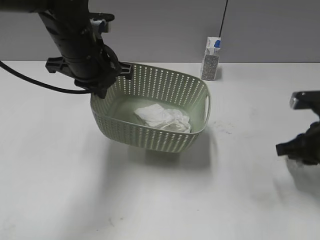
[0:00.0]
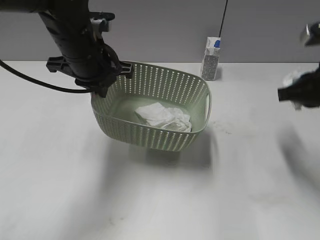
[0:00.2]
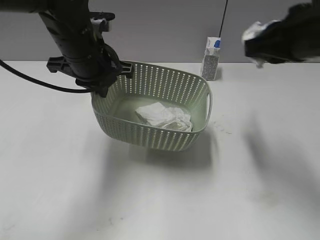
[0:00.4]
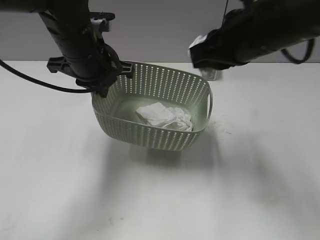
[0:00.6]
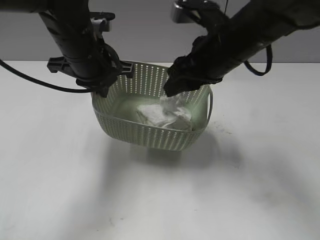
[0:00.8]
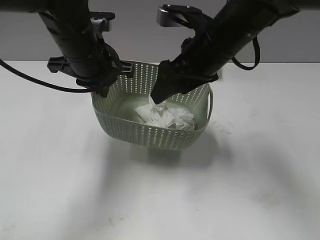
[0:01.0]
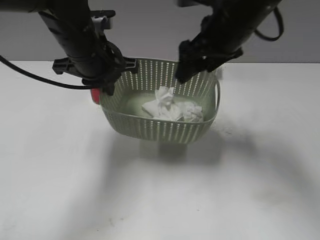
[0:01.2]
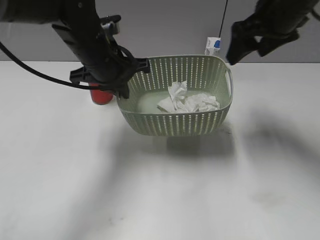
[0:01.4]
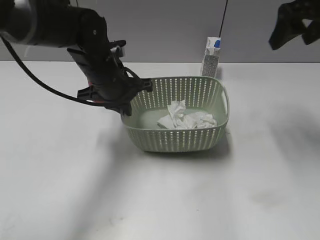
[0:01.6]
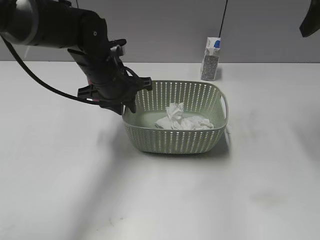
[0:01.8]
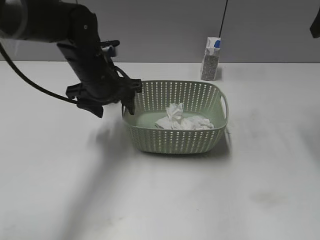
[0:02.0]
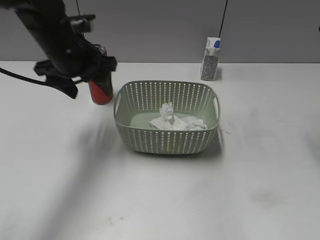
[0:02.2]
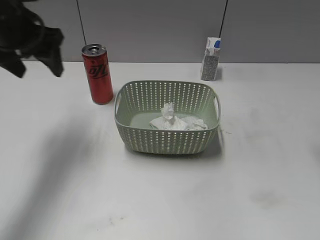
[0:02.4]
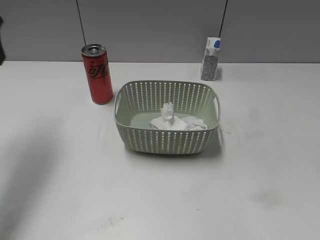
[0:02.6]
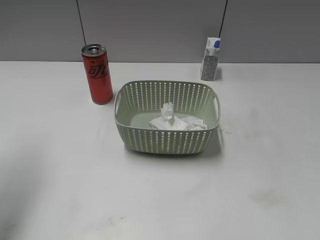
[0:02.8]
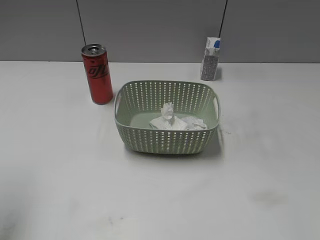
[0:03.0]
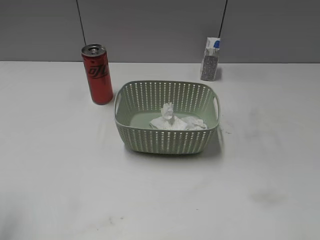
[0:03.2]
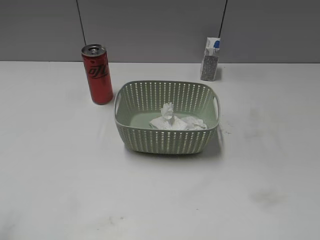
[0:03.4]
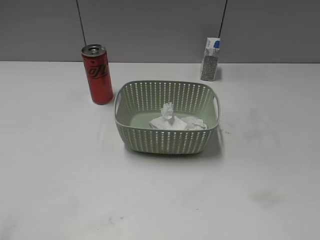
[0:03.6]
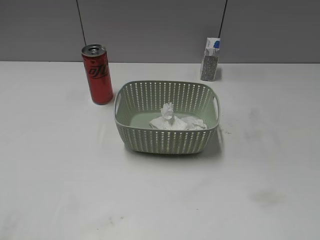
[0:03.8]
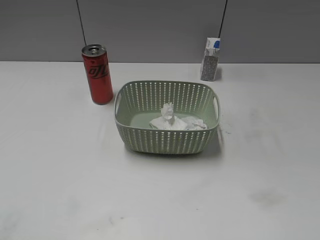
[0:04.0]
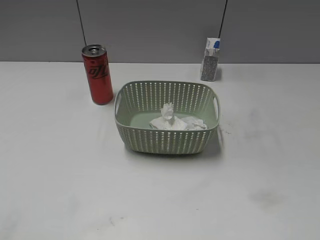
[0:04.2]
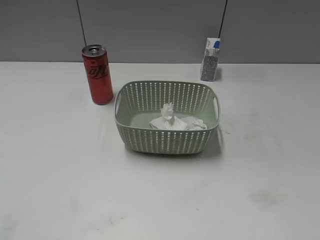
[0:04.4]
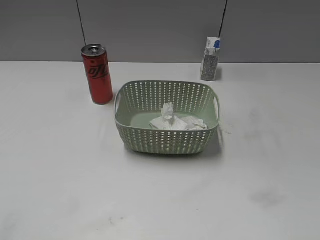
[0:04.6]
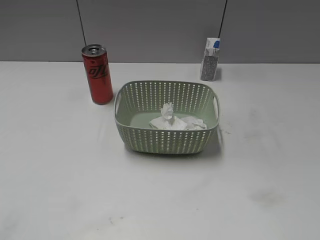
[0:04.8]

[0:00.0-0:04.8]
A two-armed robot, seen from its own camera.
Step, 0:00.0 to 0:01.2: Place the waste paper in the basket with right gripper.
Step, 0:01.4 to 0:02.2: Place the basket on the table with left gripper.
0:00.0 to 0:01.6: The left gripper heads downward, covering about 5 cm. Meanwhile the right gripper shifts approximately 20 cm upward and forward, moves approximately 20 cm to the left and comes back, and opens its fingers.
0:01.6 to 0:03.2: The left gripper shifts approximately 35 cm to the left, backward and upward, and opens its fingers. The right gripper is displaced backward by about 25 cm.

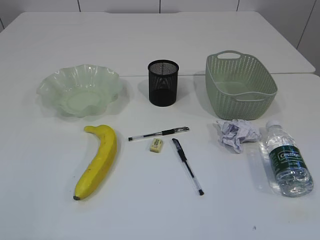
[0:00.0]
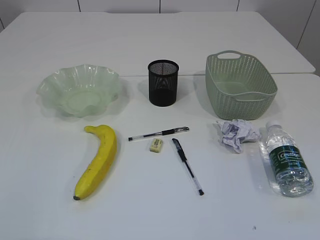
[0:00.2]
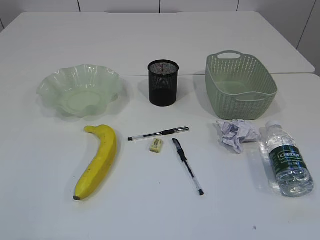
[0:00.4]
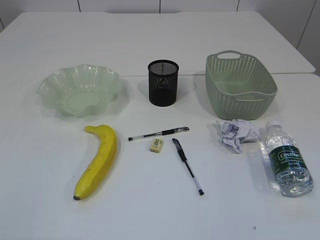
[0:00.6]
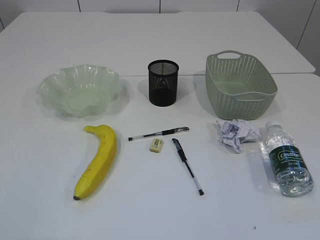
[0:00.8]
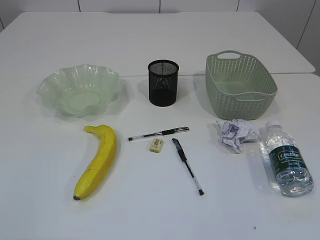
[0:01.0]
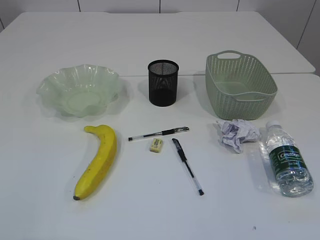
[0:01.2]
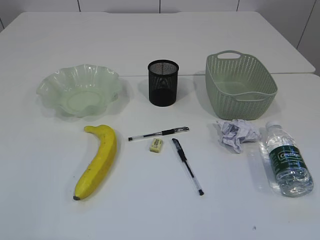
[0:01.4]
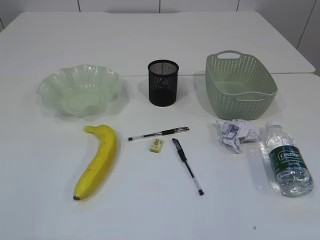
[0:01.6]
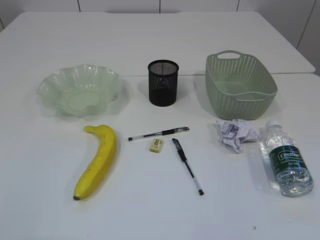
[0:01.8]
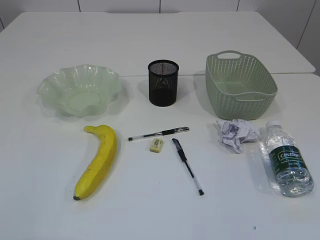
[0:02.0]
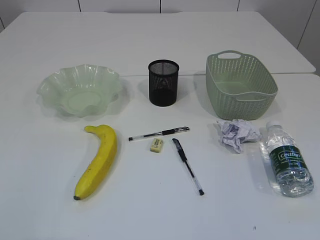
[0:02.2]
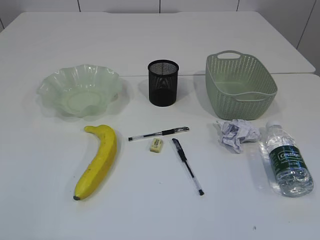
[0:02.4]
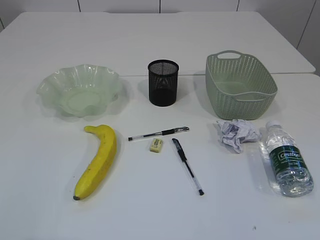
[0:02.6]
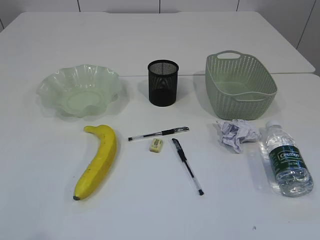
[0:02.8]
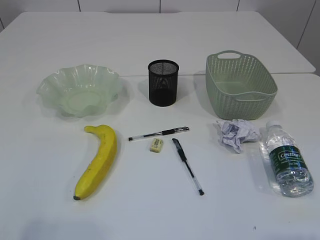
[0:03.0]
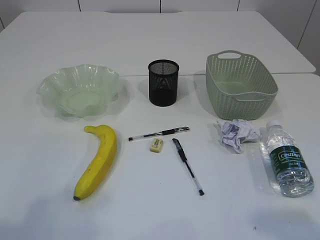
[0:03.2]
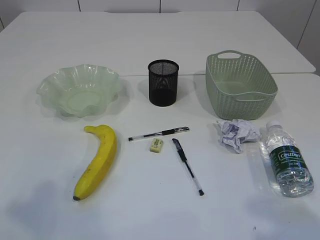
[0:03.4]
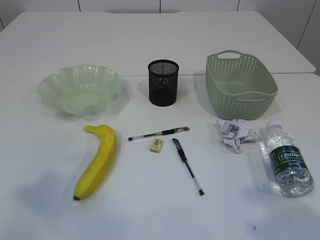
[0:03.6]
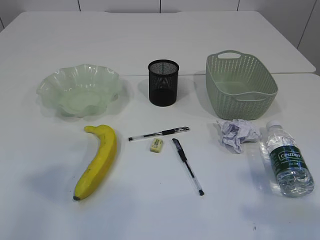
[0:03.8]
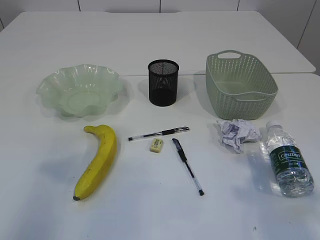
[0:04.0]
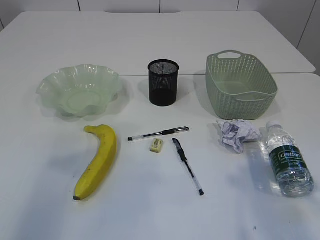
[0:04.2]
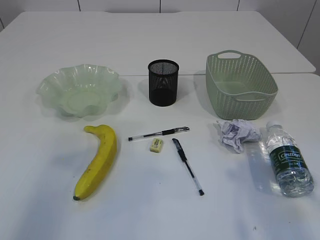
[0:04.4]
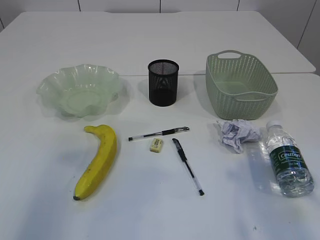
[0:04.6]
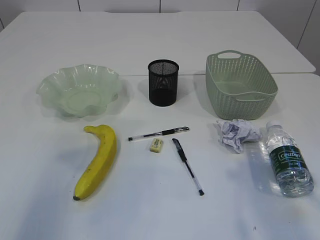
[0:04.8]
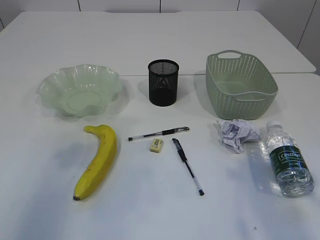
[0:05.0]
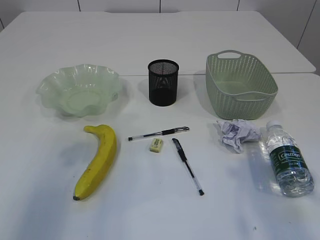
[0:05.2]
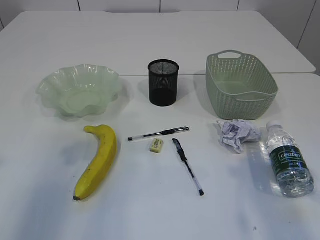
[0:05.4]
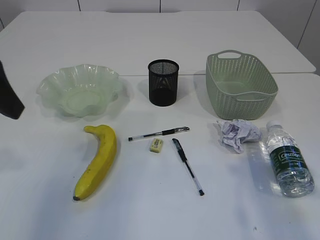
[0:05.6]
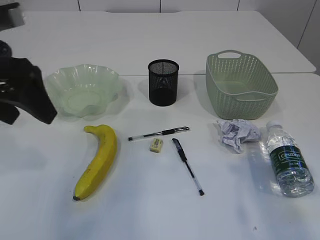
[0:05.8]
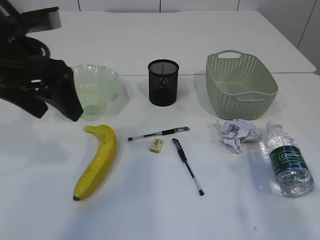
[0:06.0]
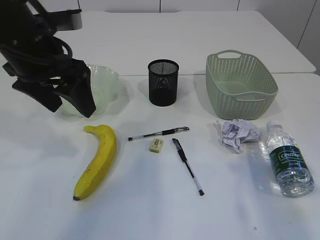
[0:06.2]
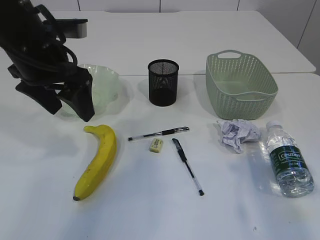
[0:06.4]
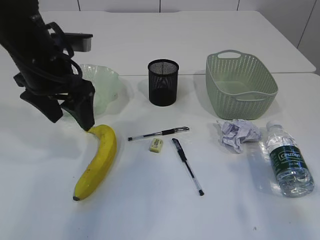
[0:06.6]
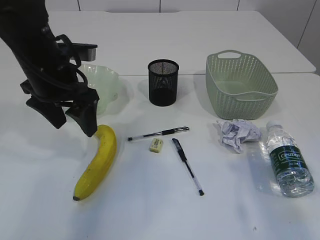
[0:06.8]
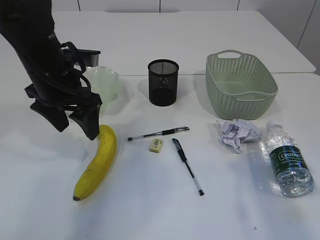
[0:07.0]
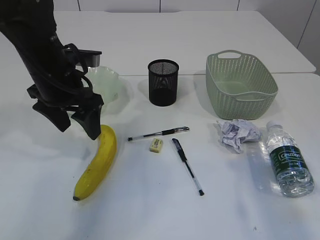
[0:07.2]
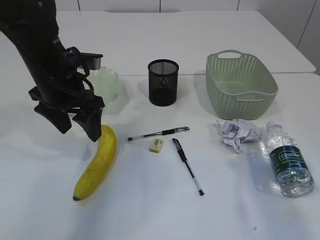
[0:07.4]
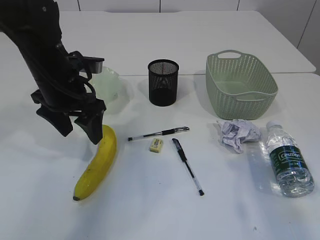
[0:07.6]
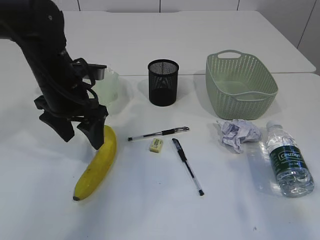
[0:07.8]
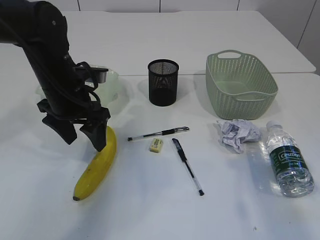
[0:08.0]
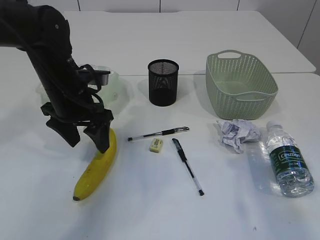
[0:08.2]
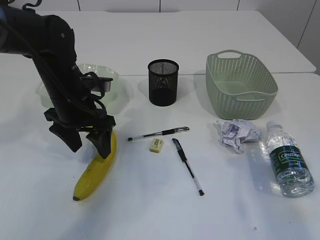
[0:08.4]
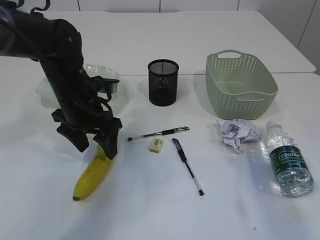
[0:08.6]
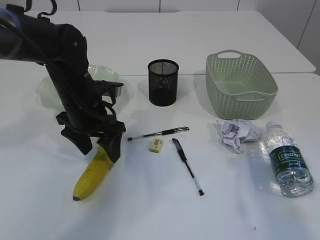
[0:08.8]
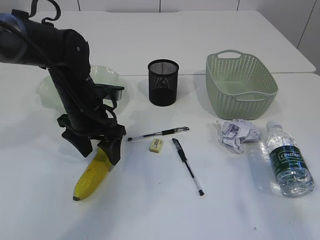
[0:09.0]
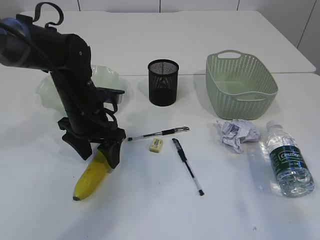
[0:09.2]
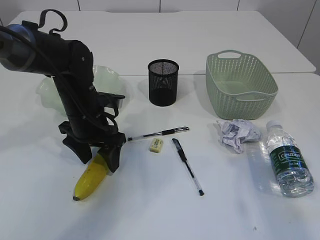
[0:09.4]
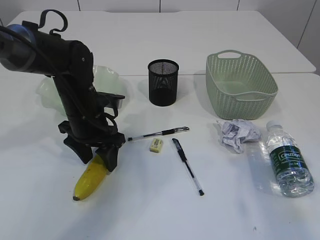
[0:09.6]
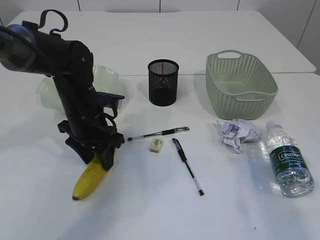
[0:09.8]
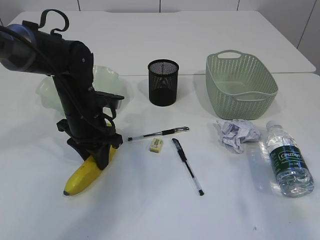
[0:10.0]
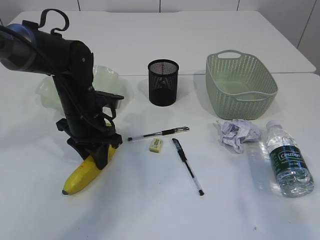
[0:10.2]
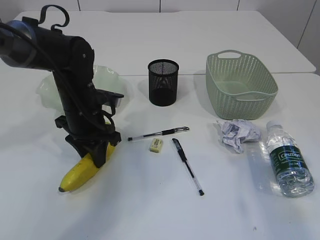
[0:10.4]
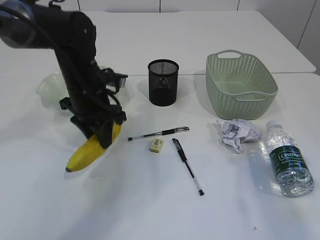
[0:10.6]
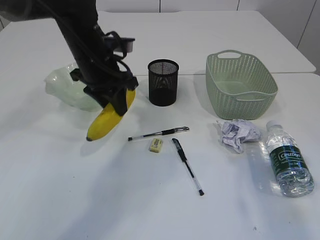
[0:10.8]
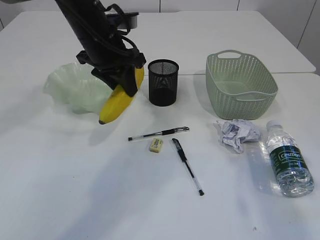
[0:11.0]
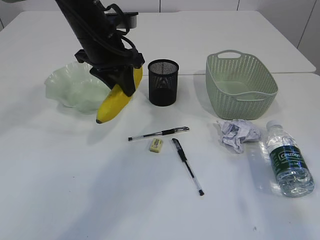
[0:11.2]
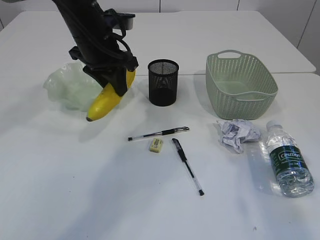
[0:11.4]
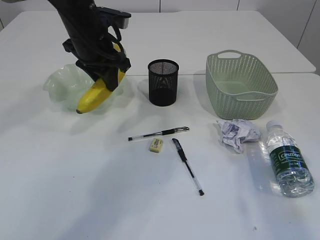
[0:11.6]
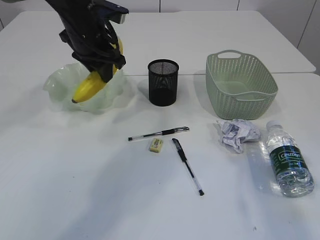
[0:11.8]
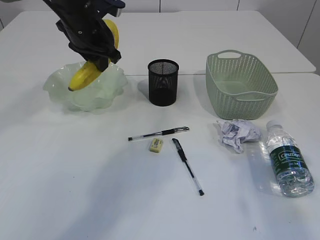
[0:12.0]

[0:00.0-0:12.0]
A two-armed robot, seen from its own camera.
0:03.0 to 0:04.4: The left gripper travels forward and upward by approximately 20 cm, while the right gripper travels forward by about 15 cm, and opens its fingers.
0:04.4 to 0:06.0: The left gripper goes some 20 cm forward, to the right and downward, and opens its fingers.
0:06.0 to 0:07.6: The left gripper shifts roughly 10 cm downward and forward.
0:07.6 to 0:09.0: The left gripper travels downward by about 5 cm.
0:09.0 to 0:10.4: The left gripper closes.
0:10.4 to 0:12.0: The left gripper shifts approximately 15 cm upward and forward.

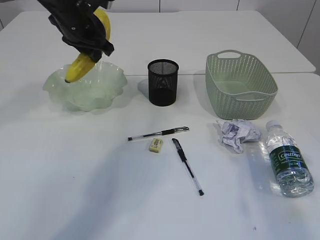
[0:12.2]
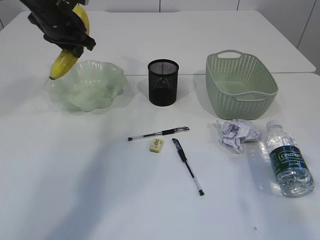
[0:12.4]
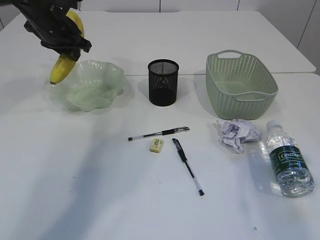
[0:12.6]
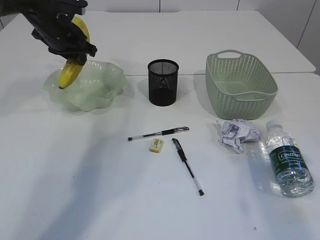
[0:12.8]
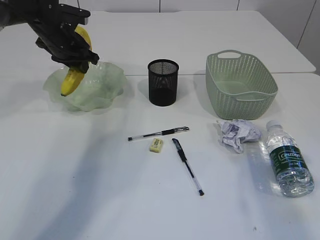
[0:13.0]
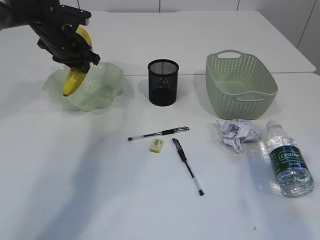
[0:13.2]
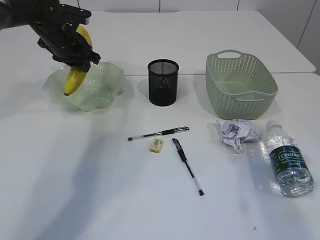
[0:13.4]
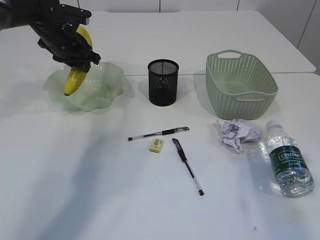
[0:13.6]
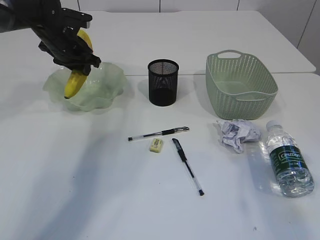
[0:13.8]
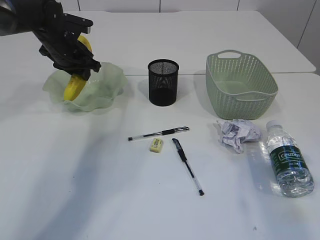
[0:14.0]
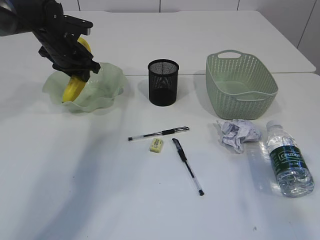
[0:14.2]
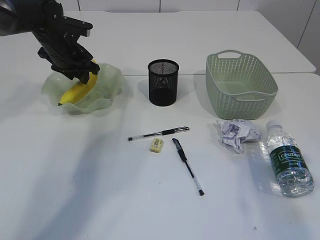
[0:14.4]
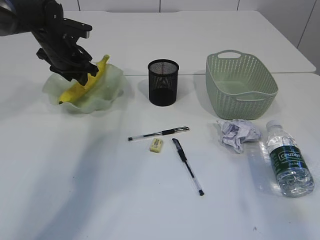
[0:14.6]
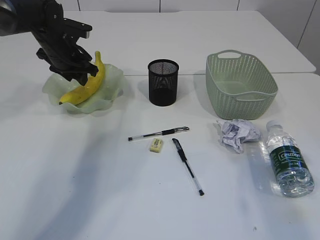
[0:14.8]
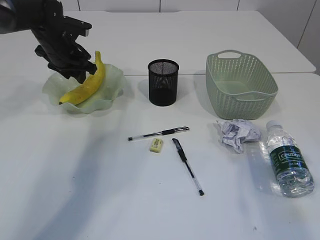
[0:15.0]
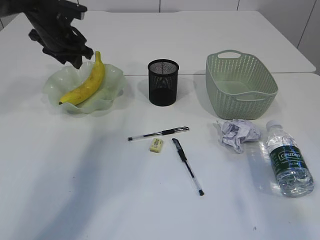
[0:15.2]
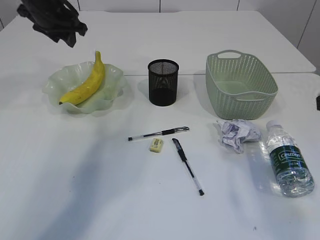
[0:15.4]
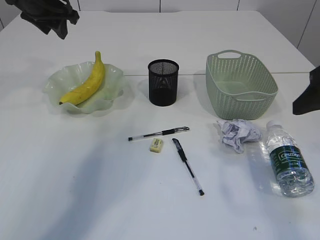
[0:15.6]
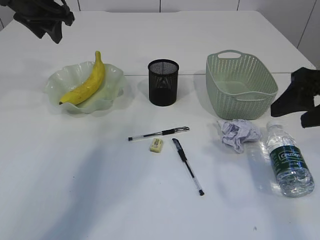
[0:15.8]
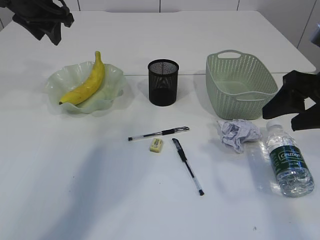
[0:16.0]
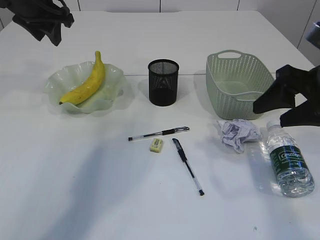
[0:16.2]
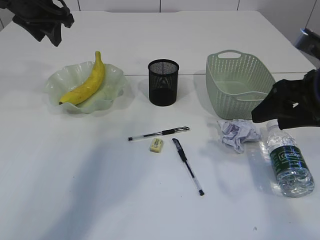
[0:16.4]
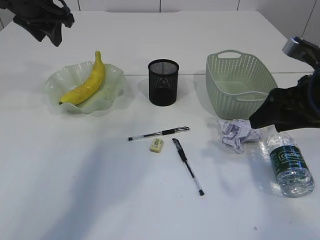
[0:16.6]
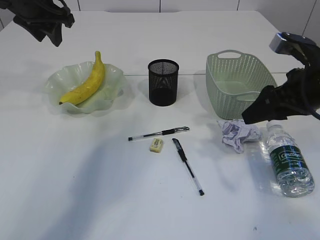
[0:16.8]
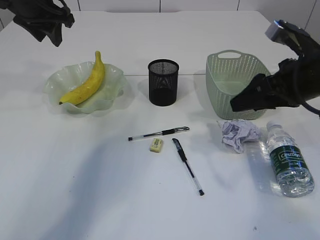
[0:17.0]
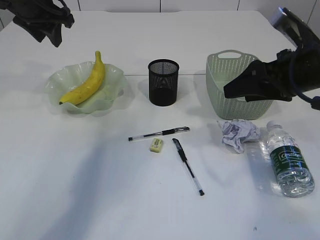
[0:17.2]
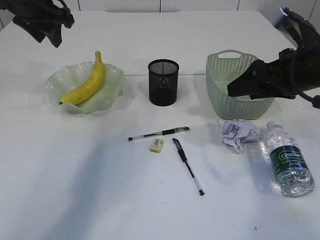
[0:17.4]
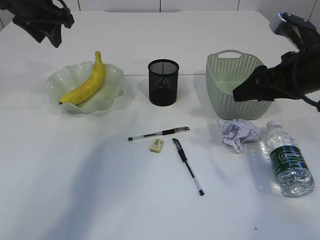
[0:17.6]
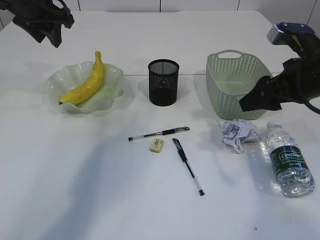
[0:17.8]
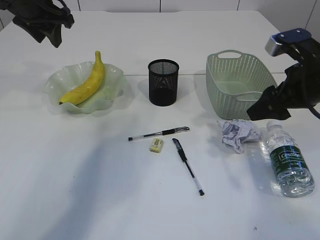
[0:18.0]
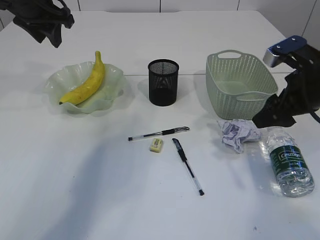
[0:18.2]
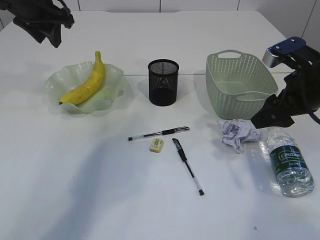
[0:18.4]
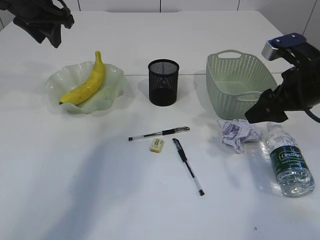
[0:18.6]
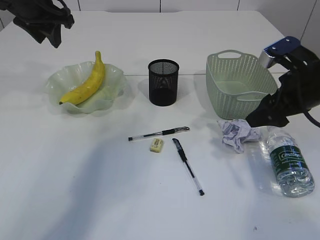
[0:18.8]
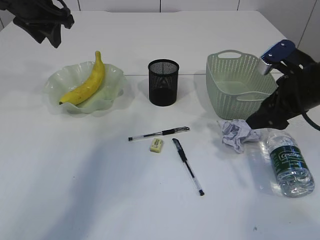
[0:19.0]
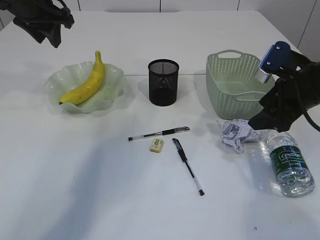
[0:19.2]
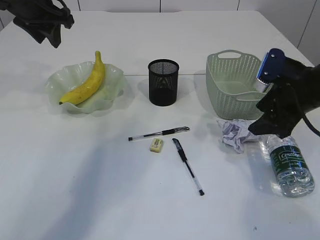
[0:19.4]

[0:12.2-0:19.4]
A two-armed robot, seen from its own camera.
Step, 0:12.2 to 0:15.2: Place the banana in the plate.
0:12.2 to 0:13.6: The left gripper goes roughly 10 cm downward and to the left.
0:13.6 to 0:15.0: The grippers make only small movements.
0:15.0 to 0:16.6: The left gripper travels upward by approximately 10 cm. The right gripper is displaced downward and forward by about 10 cm.
